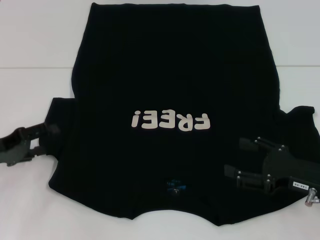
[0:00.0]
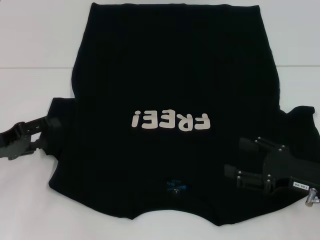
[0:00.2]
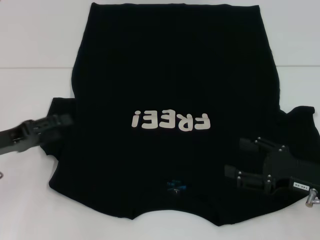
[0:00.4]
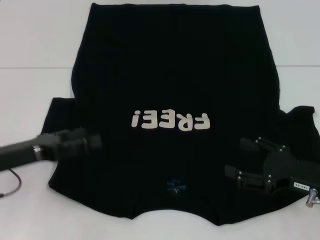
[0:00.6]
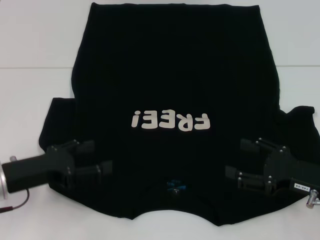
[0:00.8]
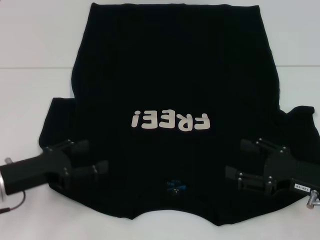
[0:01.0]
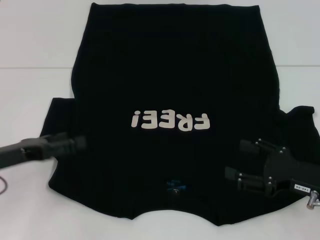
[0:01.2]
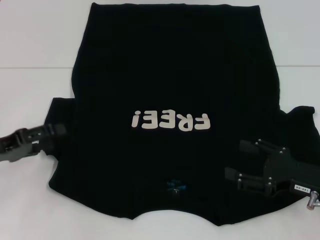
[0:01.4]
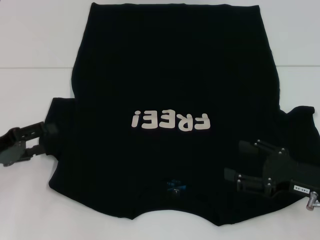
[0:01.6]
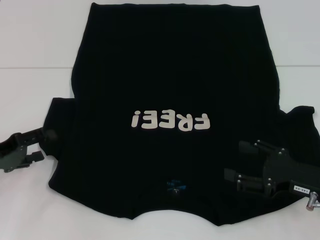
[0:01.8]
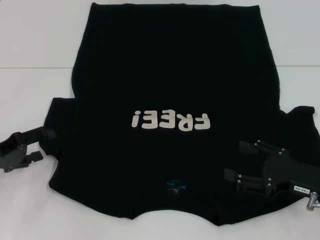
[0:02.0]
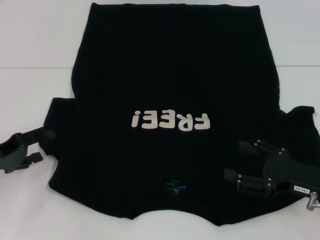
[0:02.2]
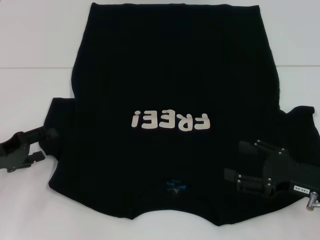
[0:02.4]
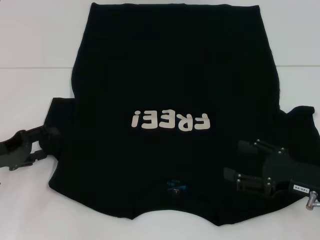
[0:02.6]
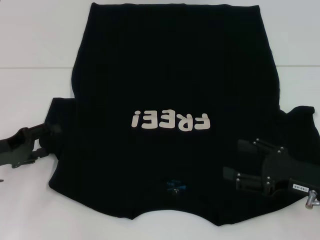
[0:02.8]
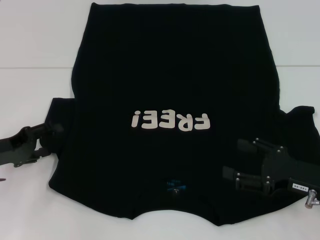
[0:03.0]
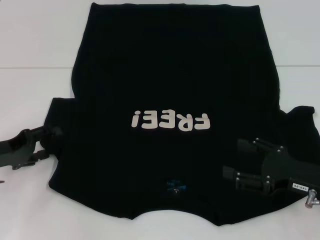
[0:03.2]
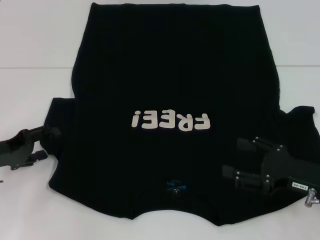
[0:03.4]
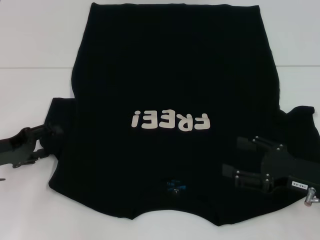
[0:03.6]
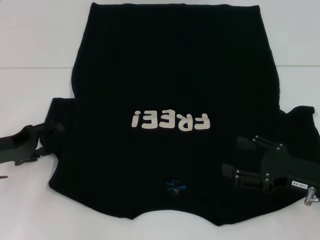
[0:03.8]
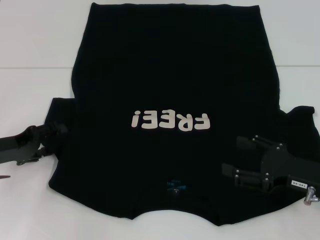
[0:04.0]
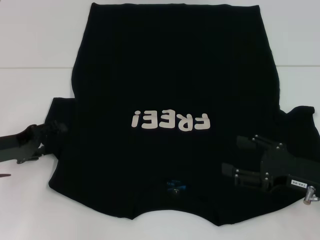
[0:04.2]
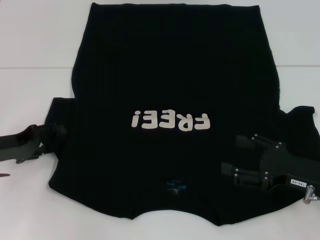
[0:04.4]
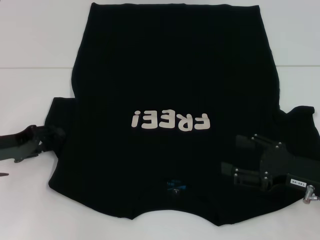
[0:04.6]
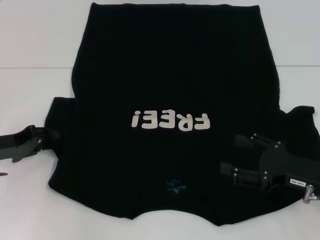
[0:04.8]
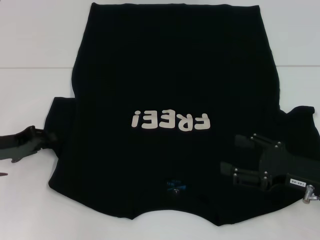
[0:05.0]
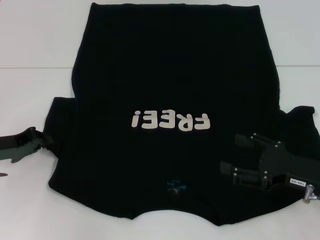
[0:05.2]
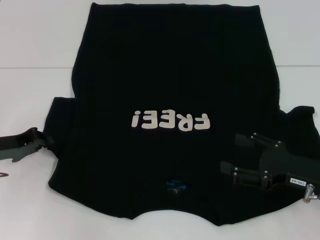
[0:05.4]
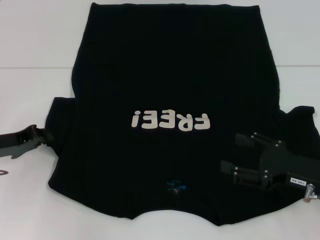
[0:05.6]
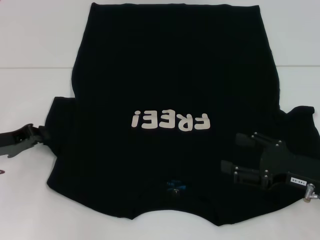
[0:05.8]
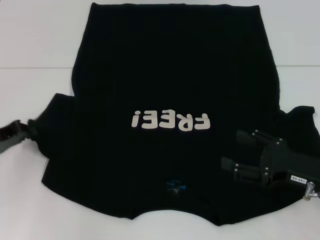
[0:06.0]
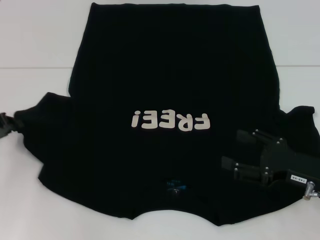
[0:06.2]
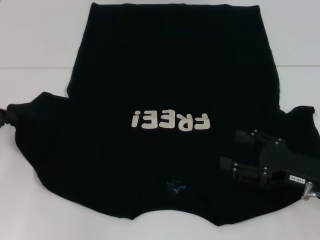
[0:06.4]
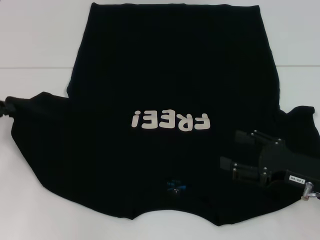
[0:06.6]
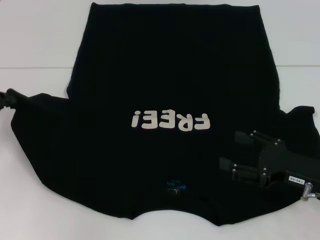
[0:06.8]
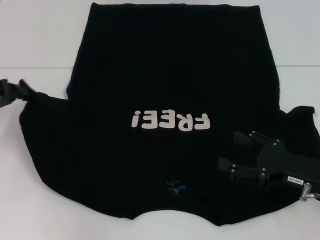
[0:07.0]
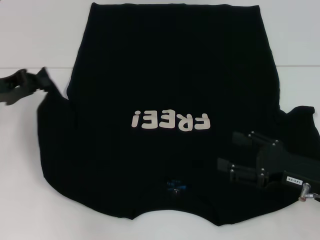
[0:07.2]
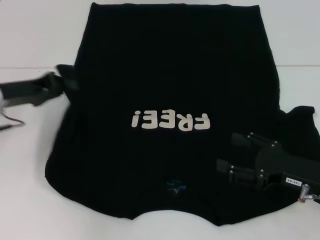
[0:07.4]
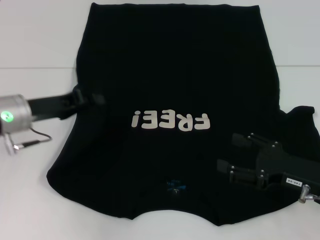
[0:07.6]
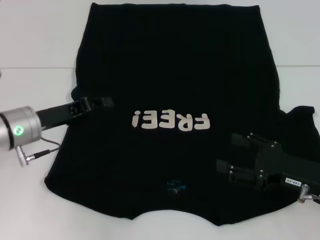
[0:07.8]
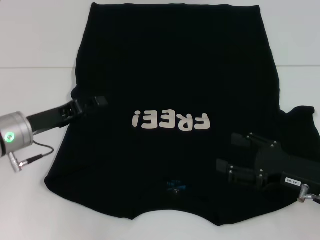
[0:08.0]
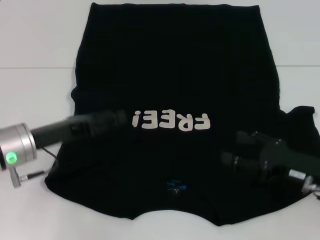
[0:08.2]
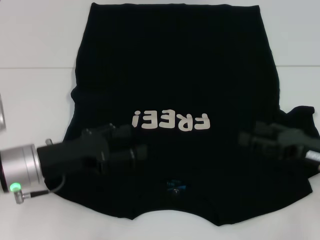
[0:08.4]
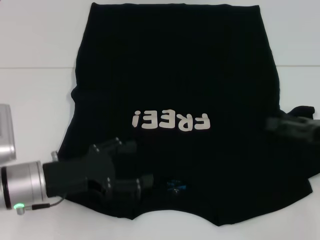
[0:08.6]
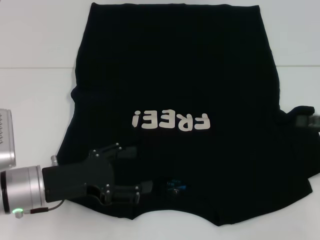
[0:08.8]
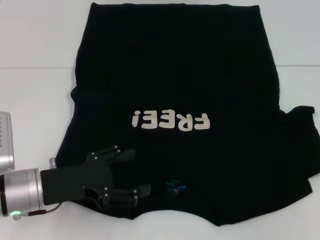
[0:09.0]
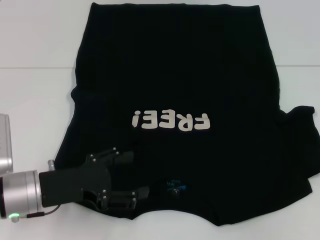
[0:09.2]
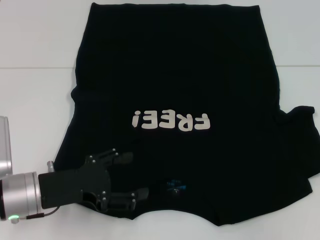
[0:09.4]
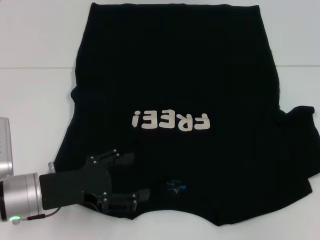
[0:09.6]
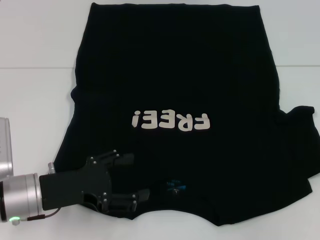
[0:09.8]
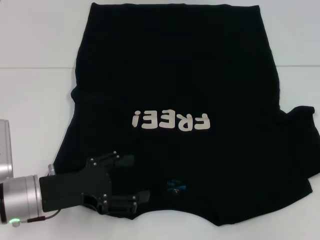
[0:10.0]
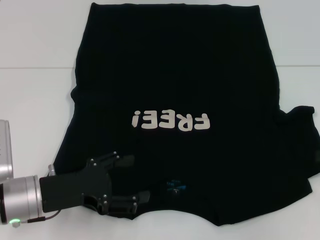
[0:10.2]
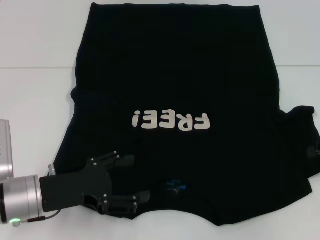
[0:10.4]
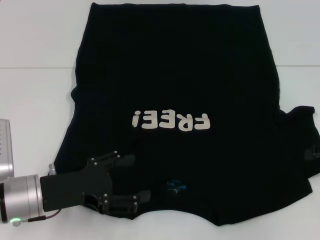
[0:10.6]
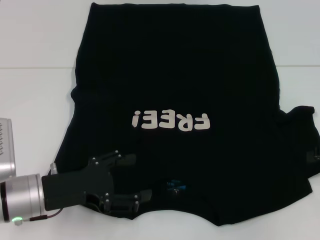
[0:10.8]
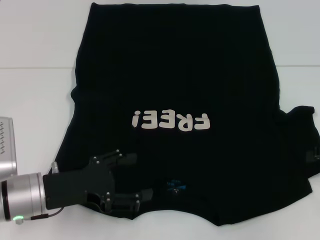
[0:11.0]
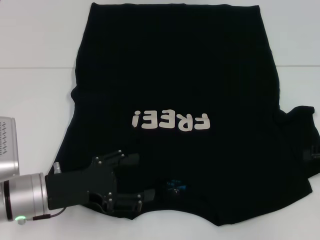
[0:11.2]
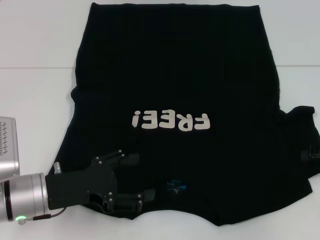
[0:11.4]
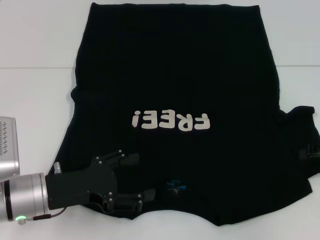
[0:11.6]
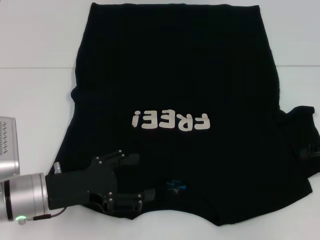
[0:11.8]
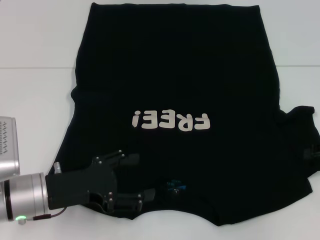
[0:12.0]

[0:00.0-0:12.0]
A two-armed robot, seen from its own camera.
Step, 0:00.0 to 0:07.6: Fold the bottom left sleeve with your left hand.
0:01.6 to 0:04.4: The grippers move only a little.
0:04.4 to 0:06.0: The left gripper closes.
0:06.0 to 0:07.6: The left gripper is displaced to the right by about 10 cm.
0:07.6 to 0:09.0: The left gripper heads backward, covering approximately 10 cm, and opens up; the right gripper travels to the right and upward by some 15 cm.
0:10.4 to 0:12.0: There are only small adjustments of the grippers.

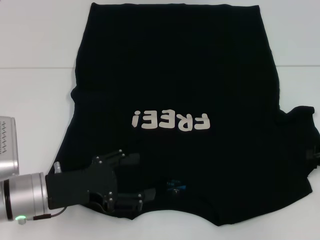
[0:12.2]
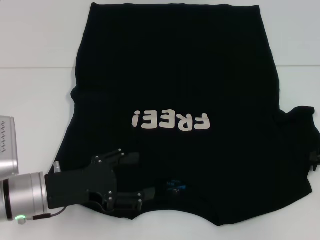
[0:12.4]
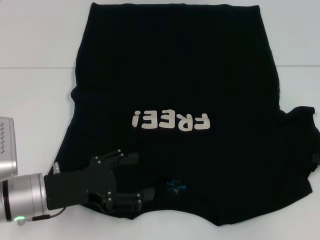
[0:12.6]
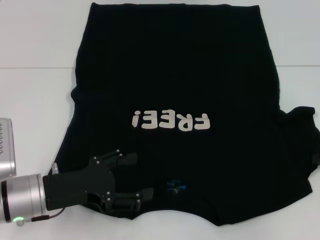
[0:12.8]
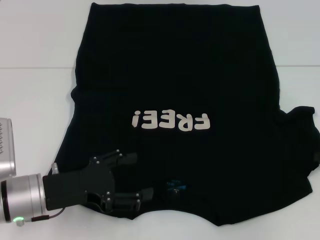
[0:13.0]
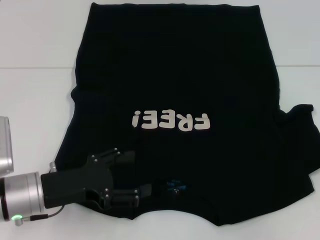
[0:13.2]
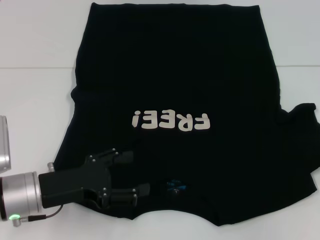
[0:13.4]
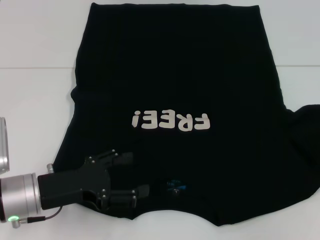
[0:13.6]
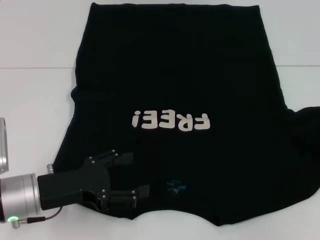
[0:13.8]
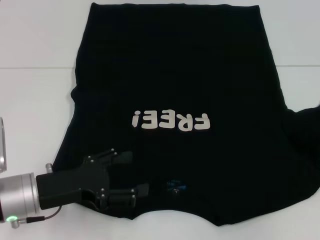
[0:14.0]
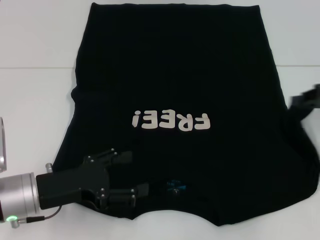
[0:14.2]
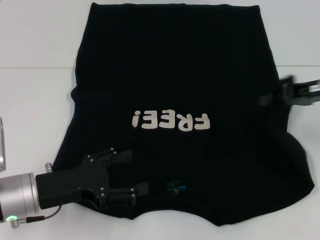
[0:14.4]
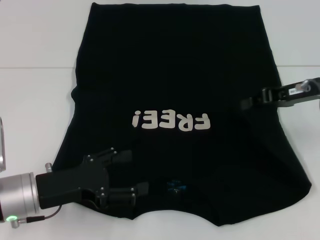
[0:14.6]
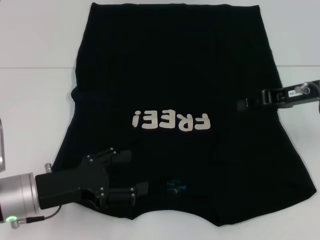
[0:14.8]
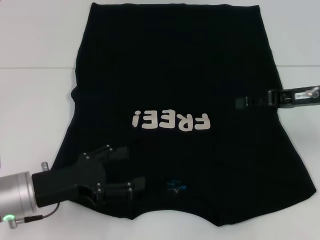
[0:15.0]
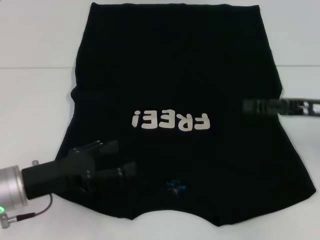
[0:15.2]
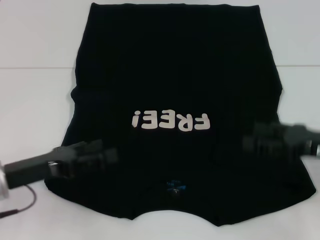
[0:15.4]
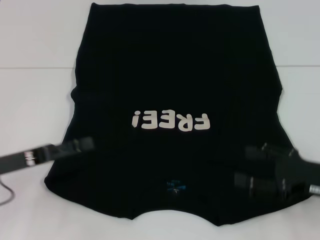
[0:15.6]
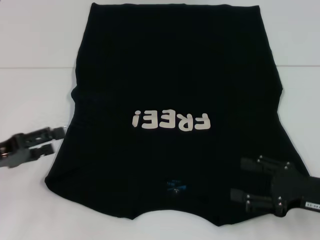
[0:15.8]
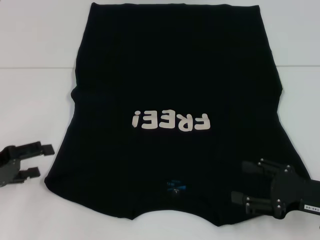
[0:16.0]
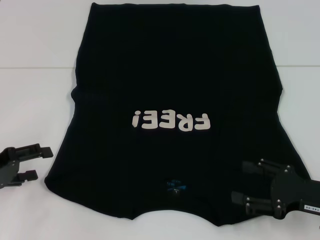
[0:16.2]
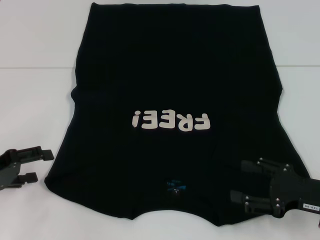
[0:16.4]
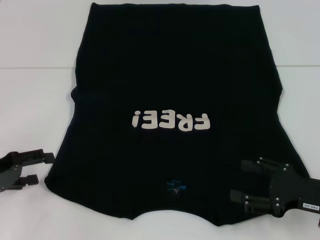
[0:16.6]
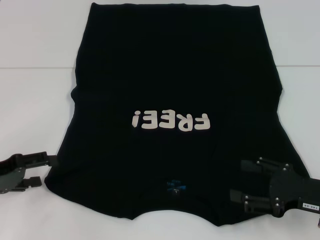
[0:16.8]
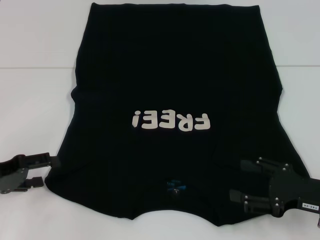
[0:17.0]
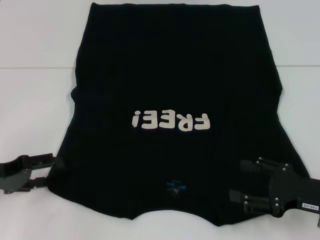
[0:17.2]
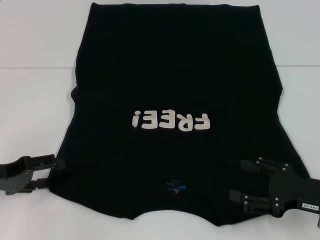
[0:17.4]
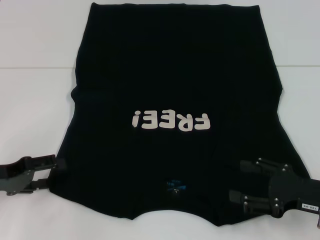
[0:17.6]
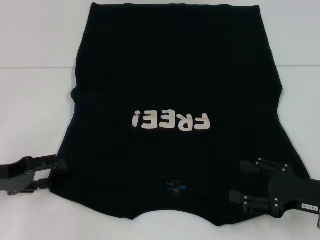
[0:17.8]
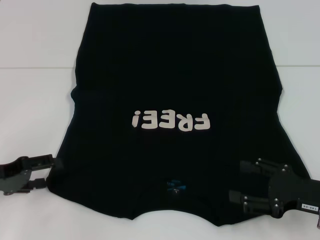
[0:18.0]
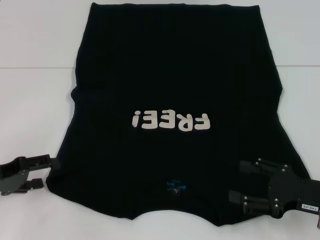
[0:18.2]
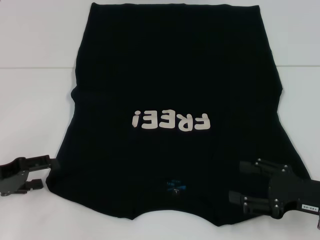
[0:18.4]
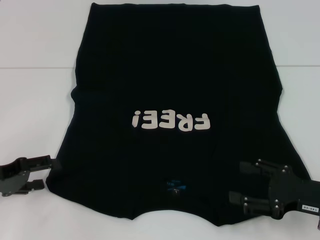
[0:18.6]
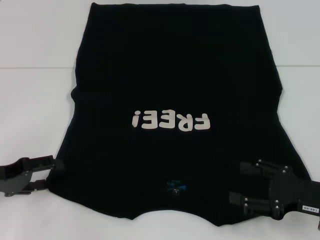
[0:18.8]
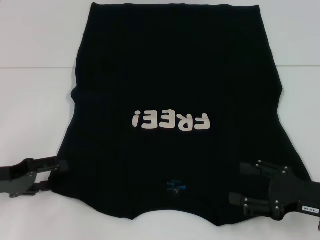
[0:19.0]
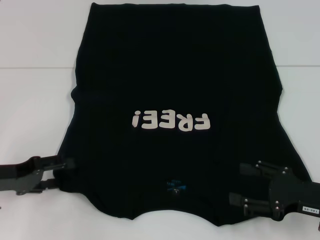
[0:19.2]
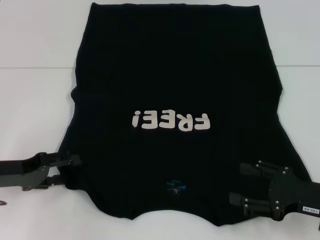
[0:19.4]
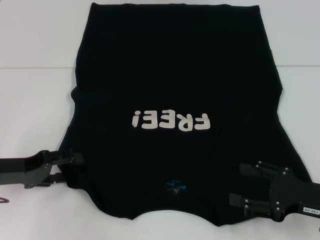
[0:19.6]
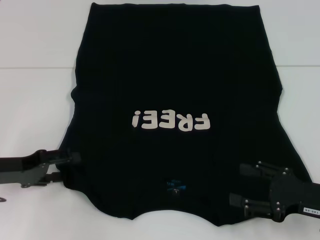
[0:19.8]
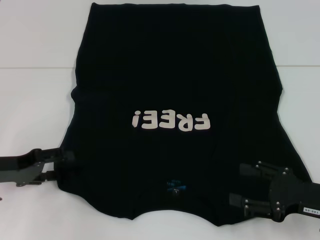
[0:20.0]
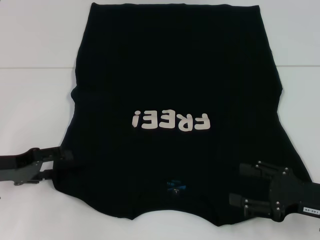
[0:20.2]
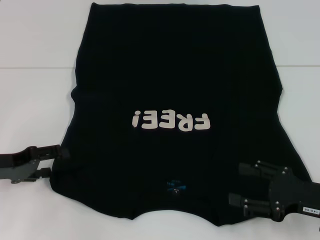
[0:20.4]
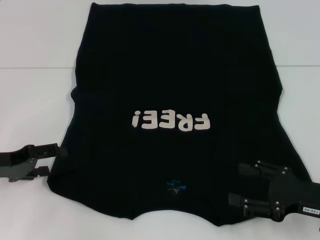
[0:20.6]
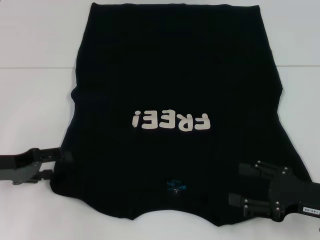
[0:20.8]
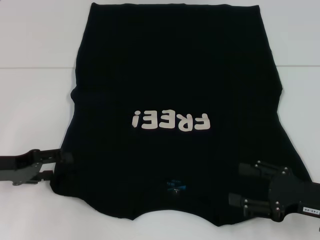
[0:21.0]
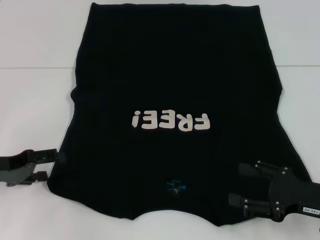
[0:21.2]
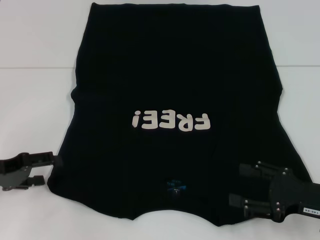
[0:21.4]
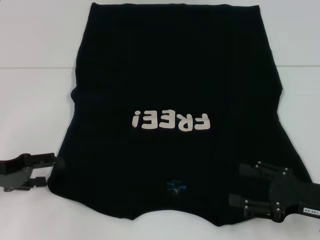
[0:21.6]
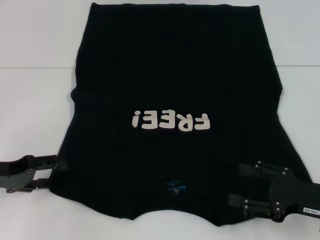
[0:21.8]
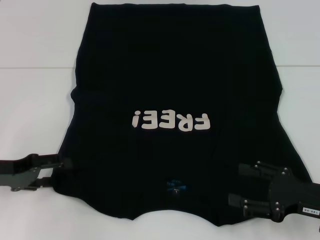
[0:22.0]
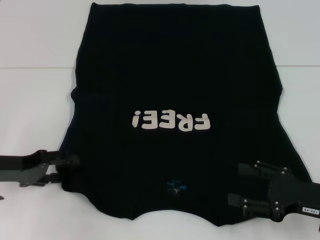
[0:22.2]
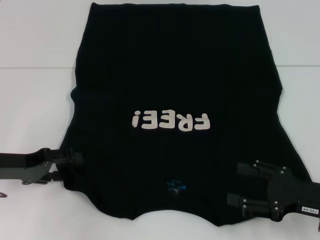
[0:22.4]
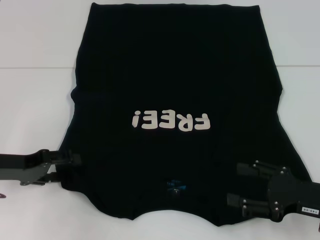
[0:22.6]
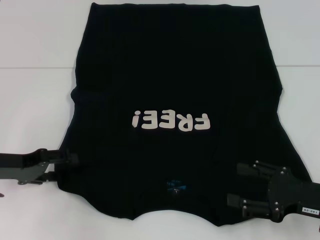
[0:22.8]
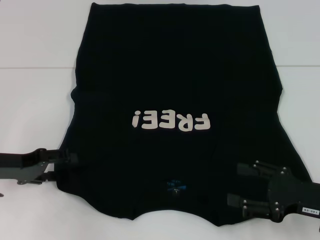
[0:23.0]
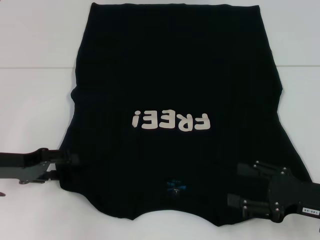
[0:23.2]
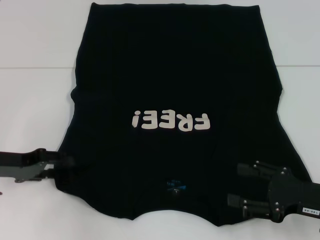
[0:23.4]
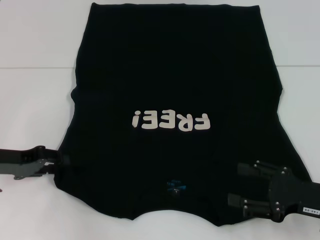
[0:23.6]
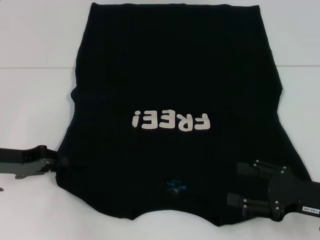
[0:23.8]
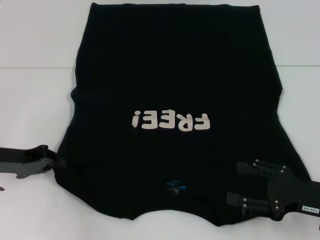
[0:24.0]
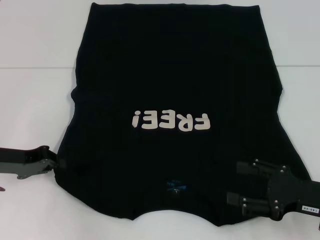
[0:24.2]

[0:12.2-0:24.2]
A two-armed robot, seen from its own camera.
Step, 0:12.2 to 0:15.0: Fold the bottom right sleeve with your right hand.
0:12.2 to 0:13.8: The right gripper travels upward by roughly 5 cm, and closes its fingers.
0:13.8 to 0:15.2: The right gripper is displaced to the left by roughly 10 cm.
0:15.2 to 0:16.6: The left gripper moves to the left, approximately 10 cm. The right gripper heads backward and downward, covering about 15 cm, and opens.
0:16.6 to 0:22.6: The grippers stay close to where they were, moving slightly.
0:22.6 to 0:24.2: The left gripper closes up.
